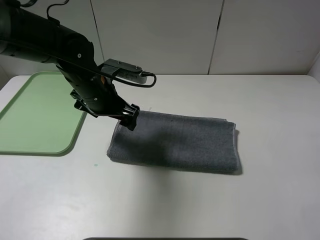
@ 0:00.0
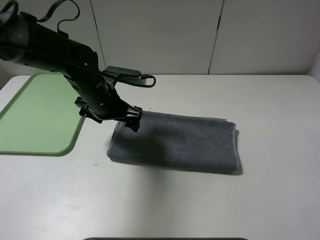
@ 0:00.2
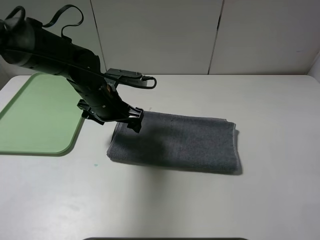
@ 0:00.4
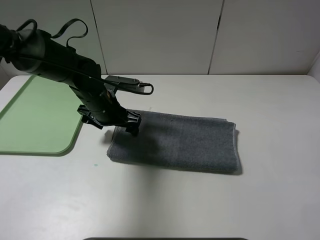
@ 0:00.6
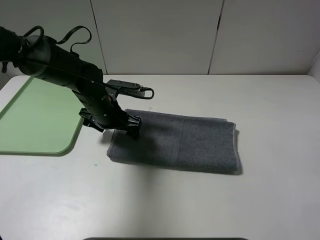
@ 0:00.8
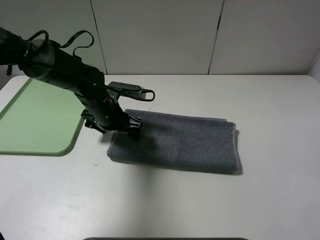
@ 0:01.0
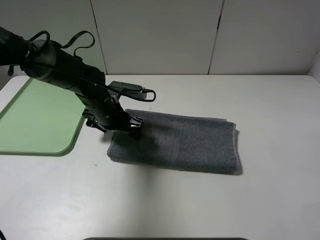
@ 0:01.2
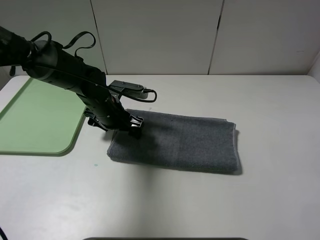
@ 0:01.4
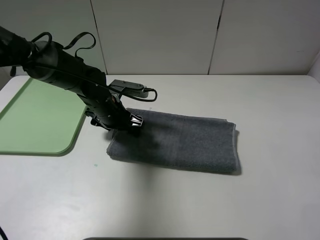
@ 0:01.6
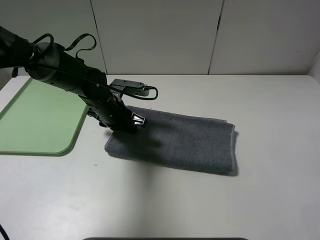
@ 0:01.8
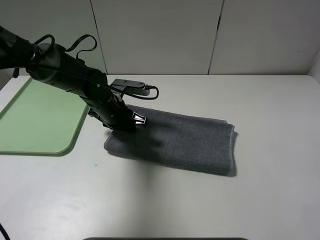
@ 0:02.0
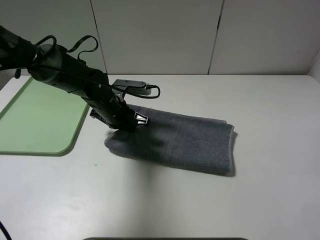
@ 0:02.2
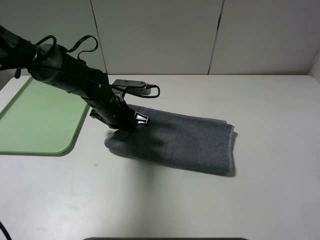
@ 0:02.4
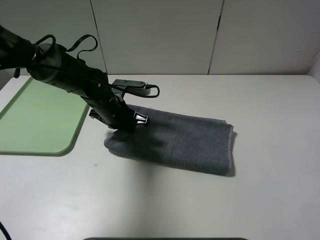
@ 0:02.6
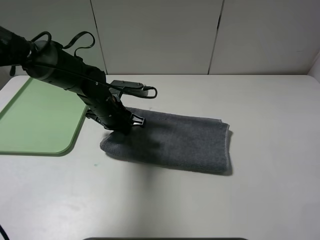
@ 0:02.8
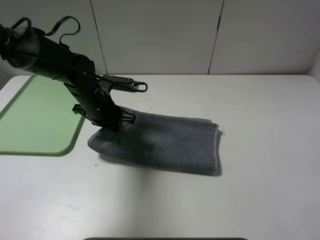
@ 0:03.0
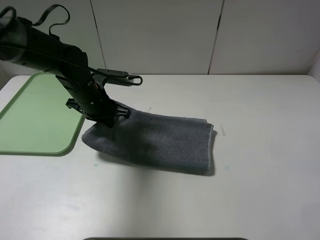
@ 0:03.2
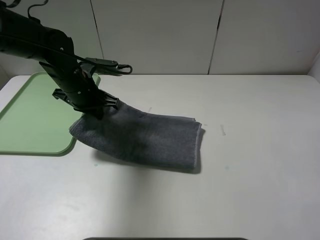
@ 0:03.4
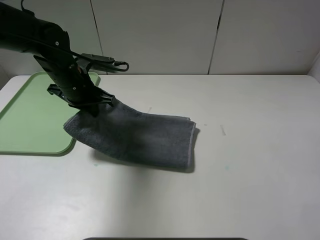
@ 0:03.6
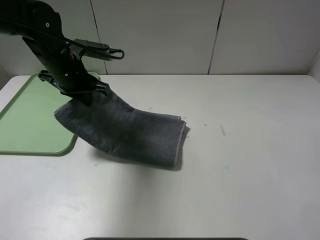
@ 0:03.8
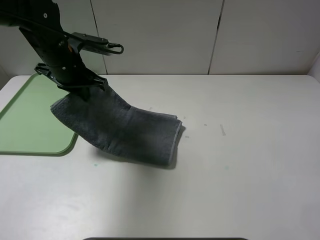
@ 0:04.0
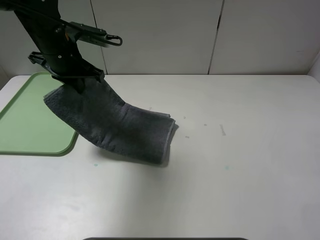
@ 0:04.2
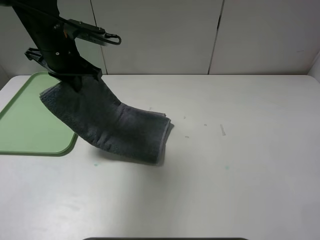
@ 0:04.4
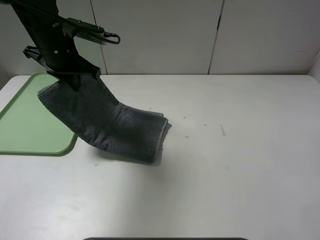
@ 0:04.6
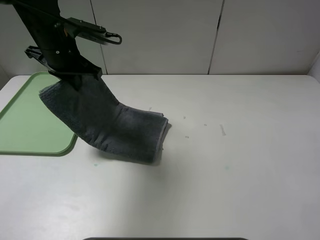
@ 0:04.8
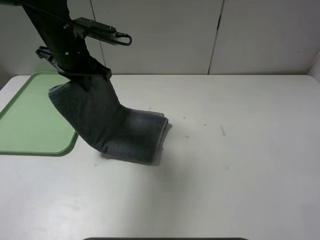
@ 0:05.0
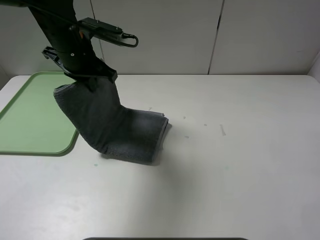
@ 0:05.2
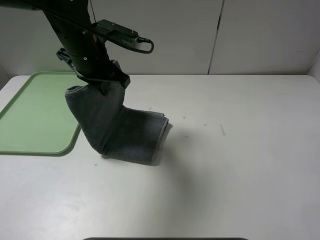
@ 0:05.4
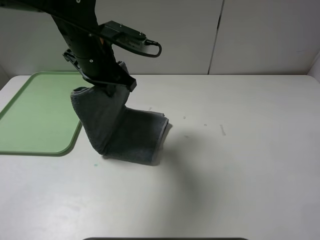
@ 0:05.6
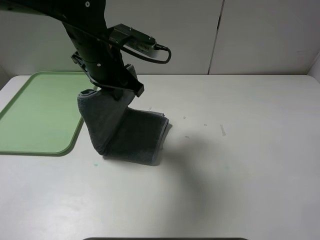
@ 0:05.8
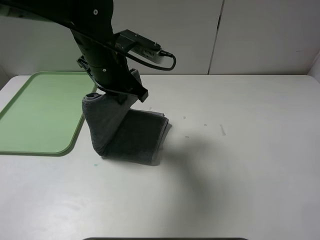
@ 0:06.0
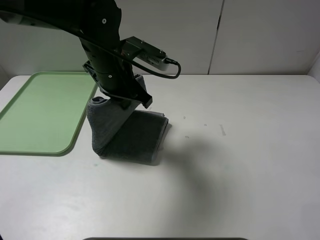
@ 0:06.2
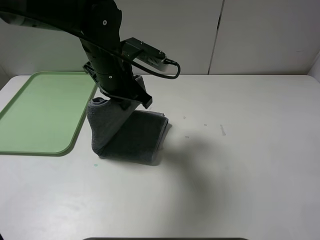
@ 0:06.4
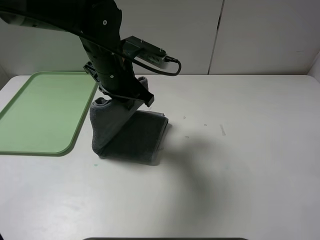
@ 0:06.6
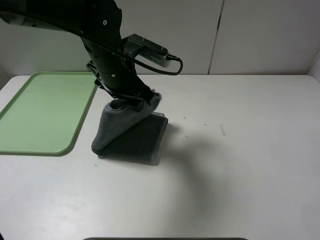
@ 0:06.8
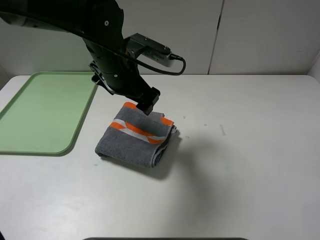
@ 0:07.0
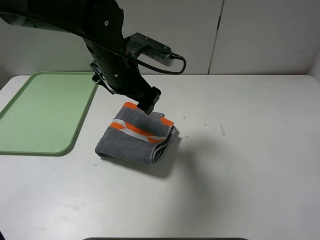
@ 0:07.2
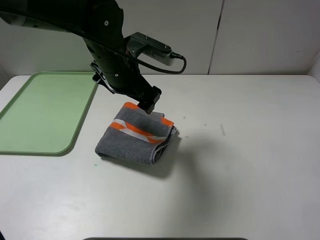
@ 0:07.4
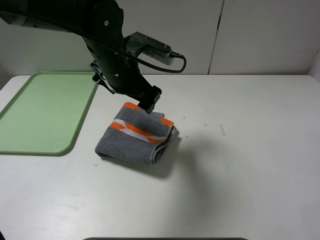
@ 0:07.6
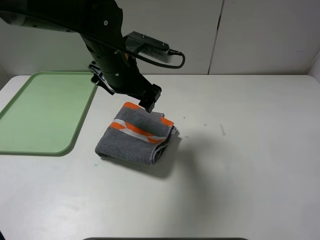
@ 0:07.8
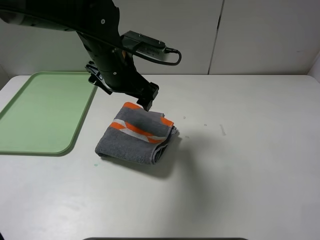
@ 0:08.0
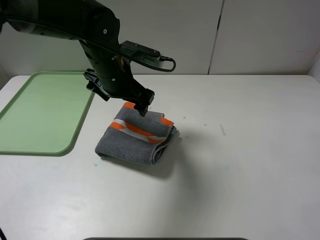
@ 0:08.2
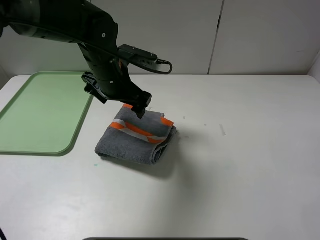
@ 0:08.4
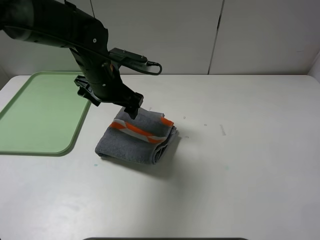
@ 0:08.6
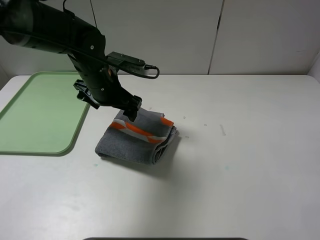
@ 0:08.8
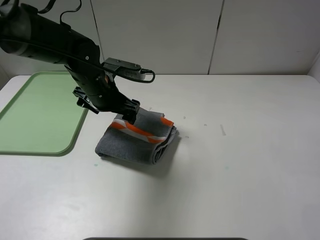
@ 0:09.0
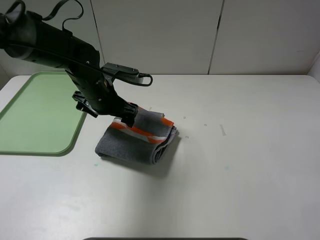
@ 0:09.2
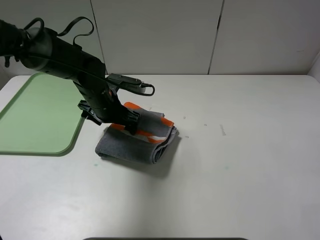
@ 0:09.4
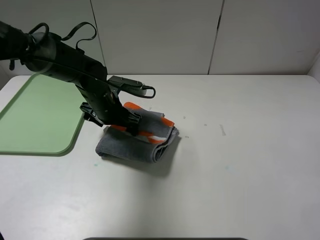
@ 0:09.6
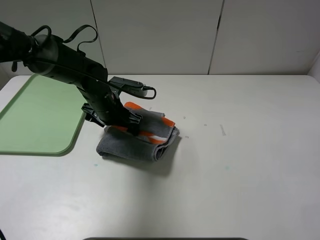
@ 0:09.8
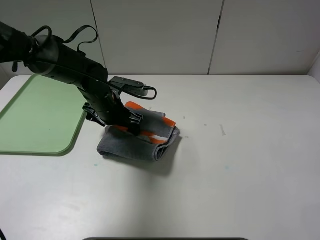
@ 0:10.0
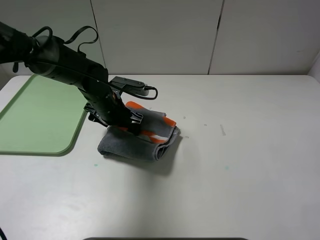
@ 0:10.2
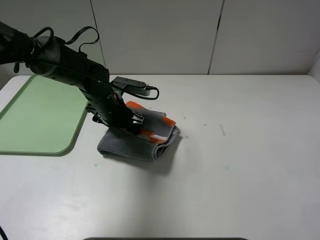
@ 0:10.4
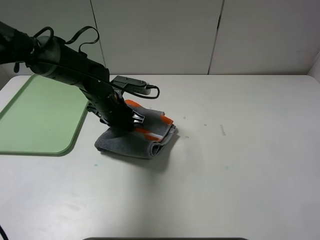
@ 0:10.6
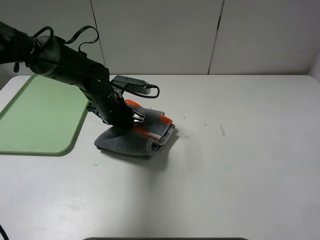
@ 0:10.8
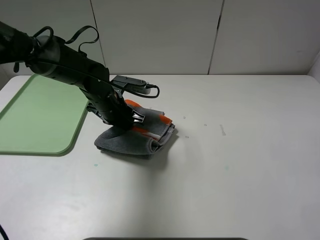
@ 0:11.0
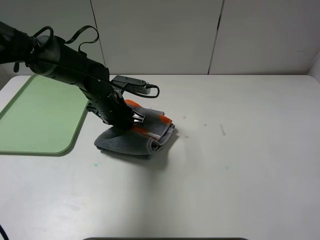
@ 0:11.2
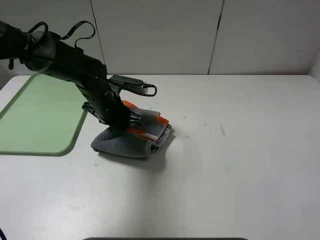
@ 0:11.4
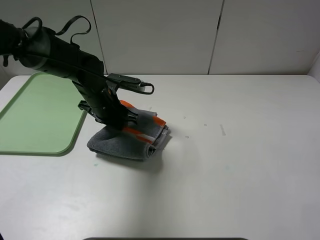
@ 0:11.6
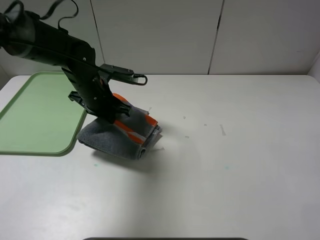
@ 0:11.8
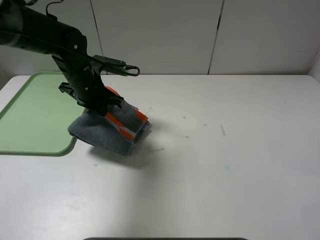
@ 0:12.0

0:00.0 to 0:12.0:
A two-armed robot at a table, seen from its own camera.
Step, 0:00.0 to 0:07.6: Fold the grey towel from left to right with left gripper.
0:00.0 to 0:01.6: The left gripper is displaced downward by approximately 10 cm.
0:01.6 to 0:03.0: The left gripper closes up.
0:03.0 to 0:04.4: The left gripper shifts approximately 10 cm upward.
0:04.4 to 0:06.0: The left gripper goes roughly 10 cm to the right.
0:06.0 to 0:07.6: The left gripper opens its fingers.
0:07.6 to 0:09.0: The left gripper shifts approximately 10 cm downward and to the left.
0:09.0 to 0:10.4: The left gripper goes roughly 5 cm downward.
0:10.4 to 0:12.0: The left gripper heads upward, covering about 5 cm, and closes.

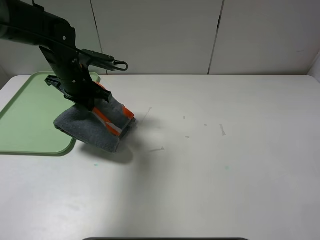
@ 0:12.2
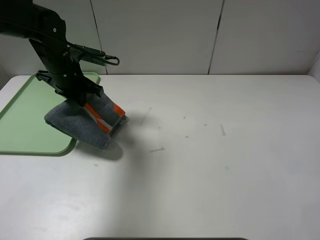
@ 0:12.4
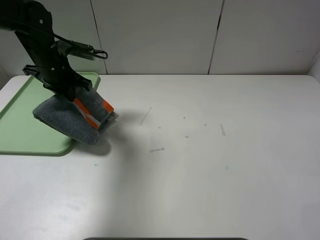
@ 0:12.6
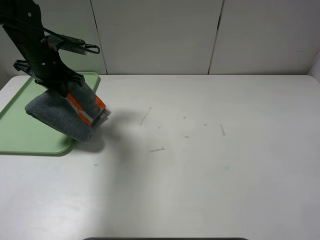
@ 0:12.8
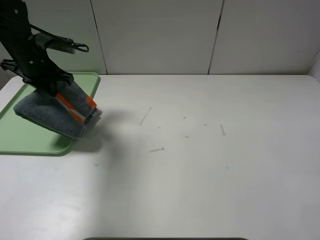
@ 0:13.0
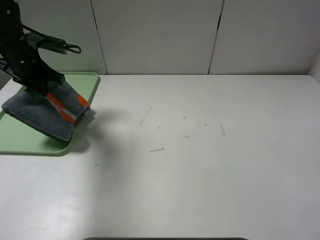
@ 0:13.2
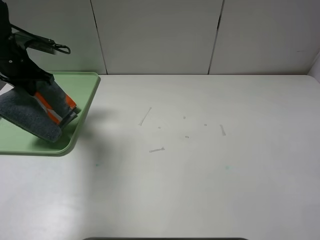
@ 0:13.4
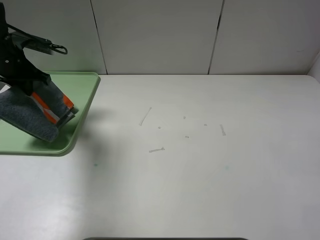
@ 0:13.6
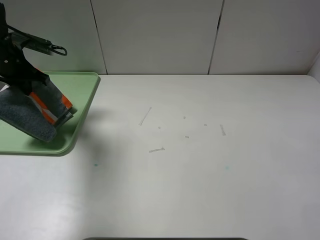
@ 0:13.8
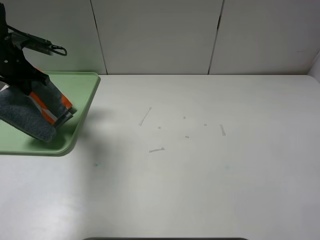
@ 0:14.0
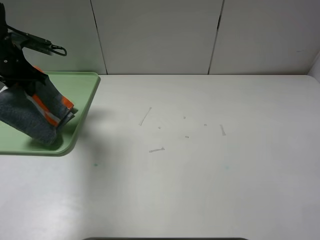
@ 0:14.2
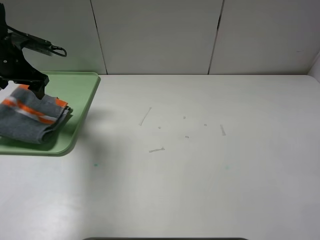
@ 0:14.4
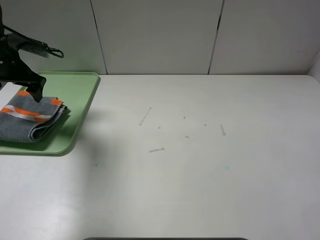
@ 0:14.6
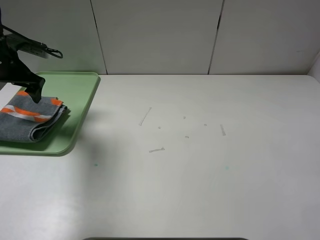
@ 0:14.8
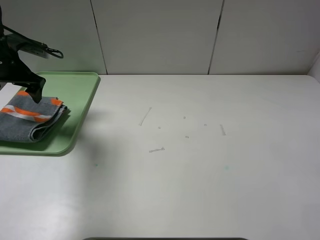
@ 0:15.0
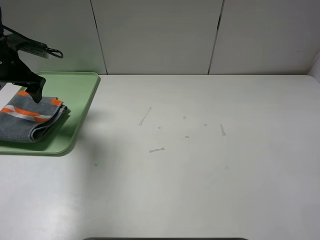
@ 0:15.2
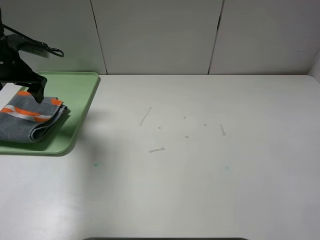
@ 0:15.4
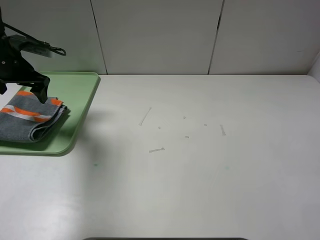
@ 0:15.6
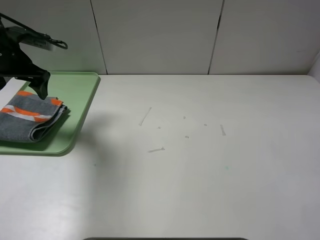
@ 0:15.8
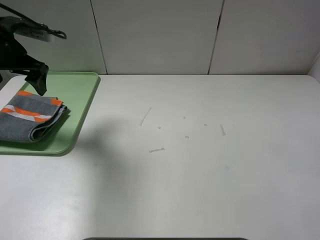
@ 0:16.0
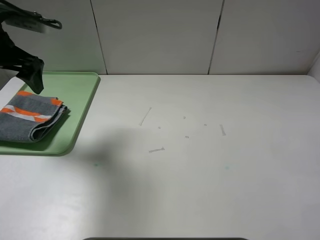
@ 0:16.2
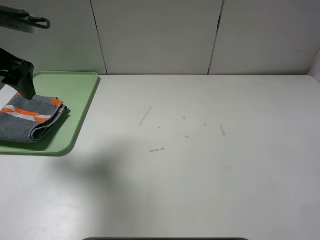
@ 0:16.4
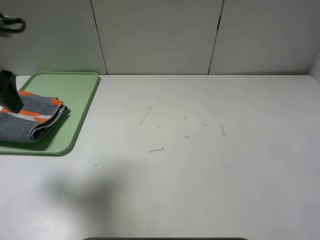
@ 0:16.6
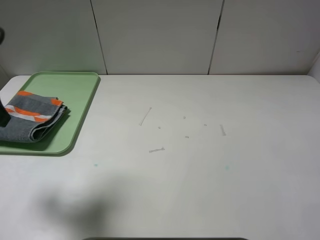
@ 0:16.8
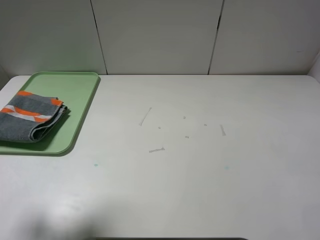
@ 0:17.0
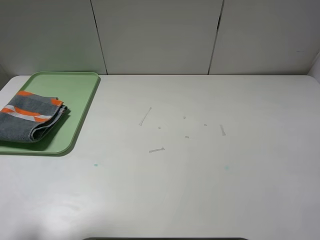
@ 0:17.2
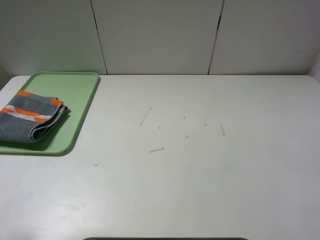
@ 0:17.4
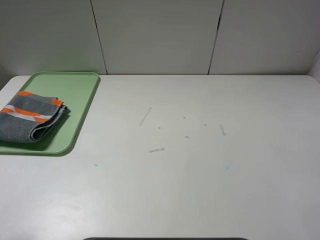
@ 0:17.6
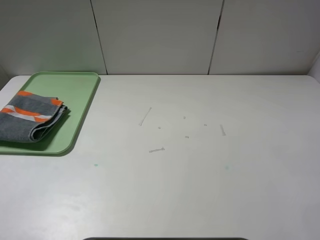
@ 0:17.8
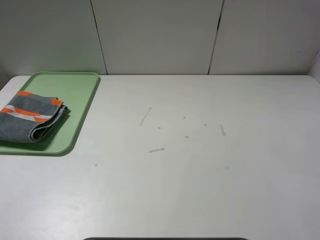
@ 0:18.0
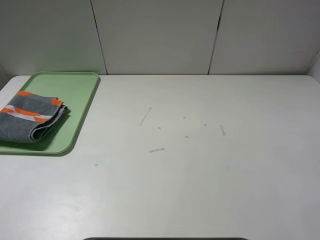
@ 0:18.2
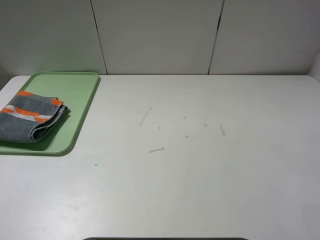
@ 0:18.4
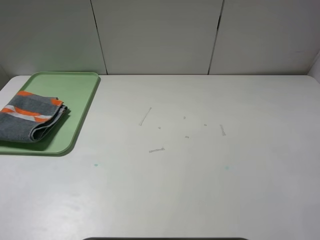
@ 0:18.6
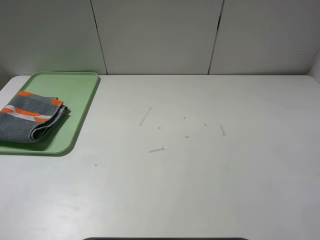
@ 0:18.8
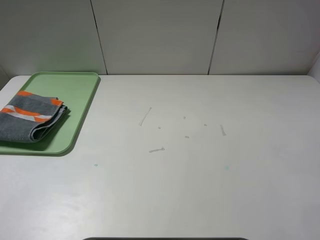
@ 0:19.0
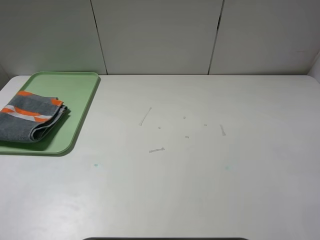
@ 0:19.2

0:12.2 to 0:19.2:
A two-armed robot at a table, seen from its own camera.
Step, 0:12.2 to 0:15.2: Place the folded grey towel on the tray with the left gripper.
0:12.2 to 0:13.6: The left gripper moves to the left, approximately 15 cm.
0:13.6 to 0:15.0: The left gripper opens its fingers.
0:15.0 to 0:16.4: The left gripper moves backward and upward, about 15 cm.
0:16.4 to 0:17.8: The left gripper travels backward by about 25 cm.
